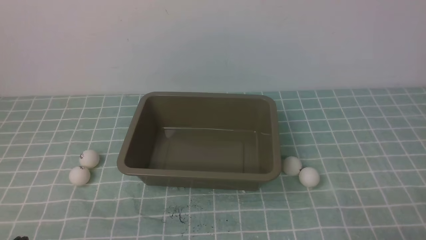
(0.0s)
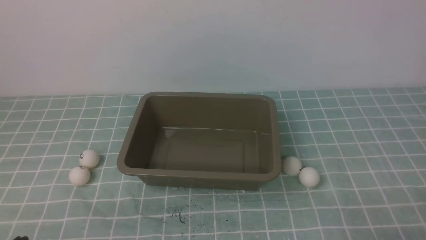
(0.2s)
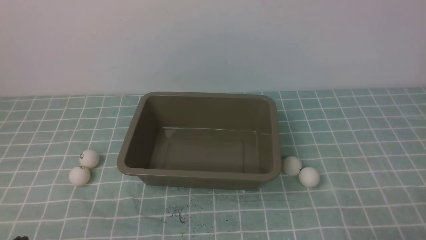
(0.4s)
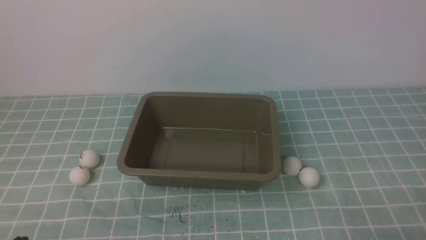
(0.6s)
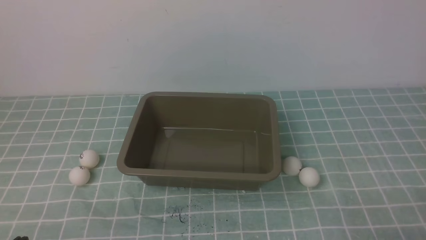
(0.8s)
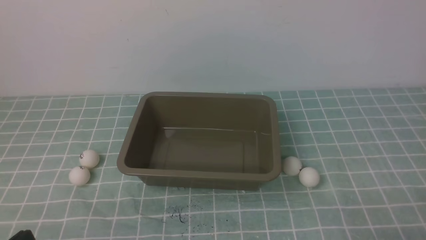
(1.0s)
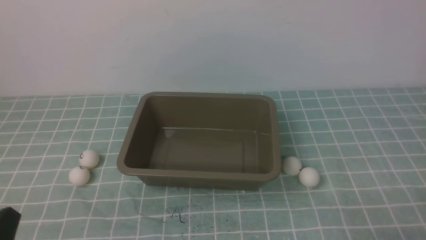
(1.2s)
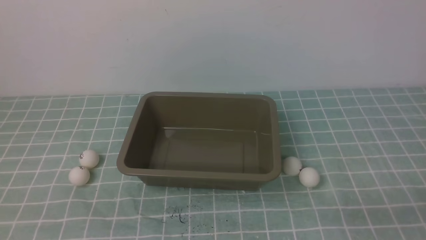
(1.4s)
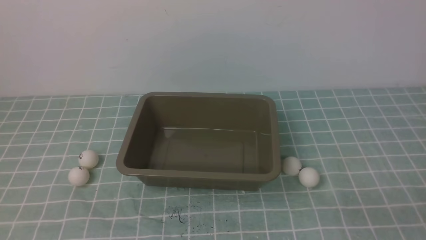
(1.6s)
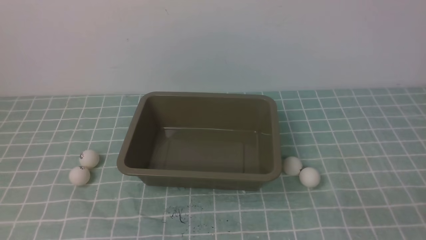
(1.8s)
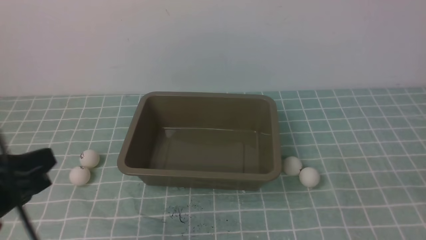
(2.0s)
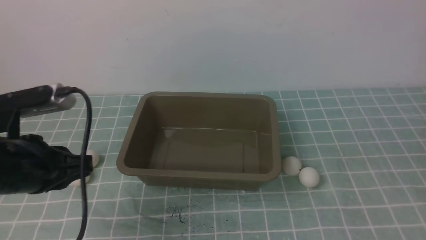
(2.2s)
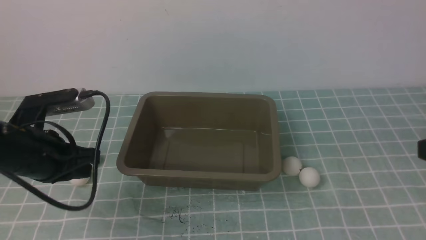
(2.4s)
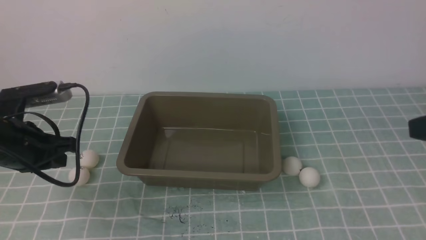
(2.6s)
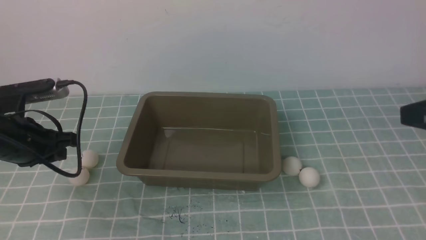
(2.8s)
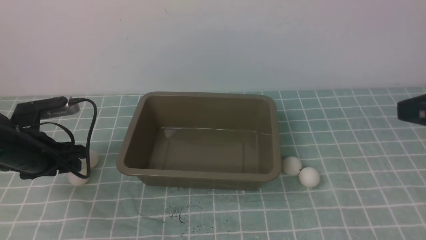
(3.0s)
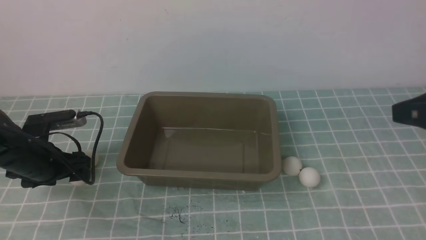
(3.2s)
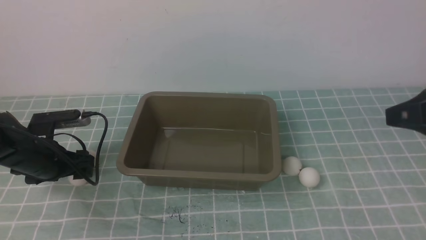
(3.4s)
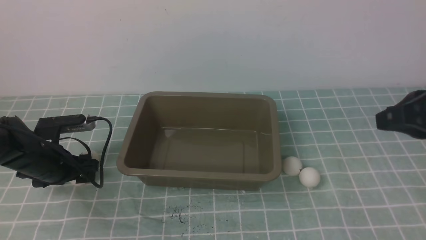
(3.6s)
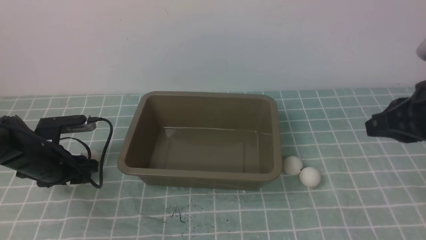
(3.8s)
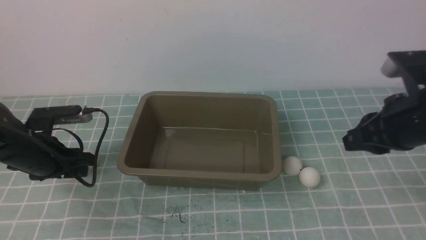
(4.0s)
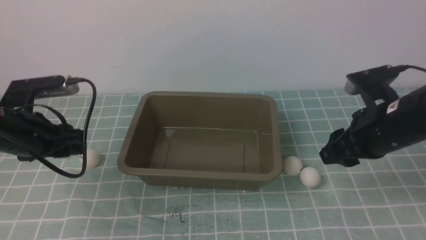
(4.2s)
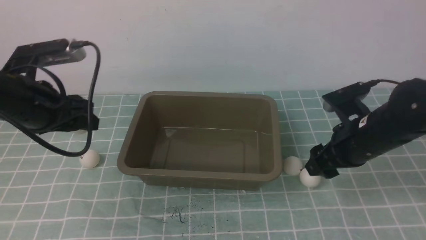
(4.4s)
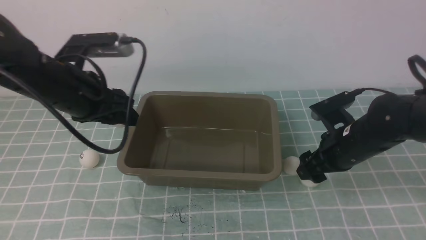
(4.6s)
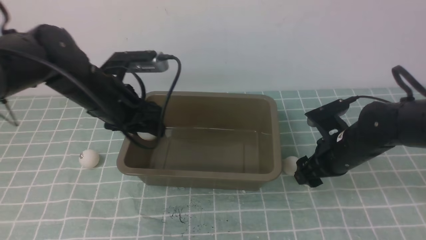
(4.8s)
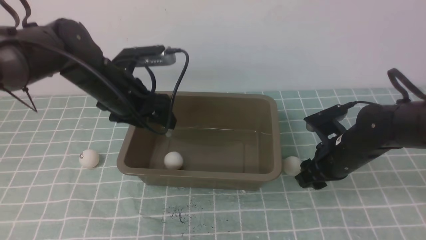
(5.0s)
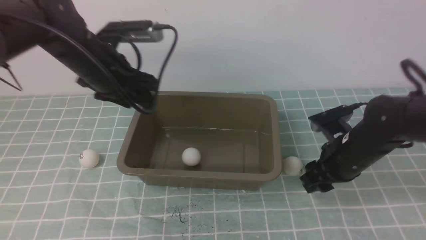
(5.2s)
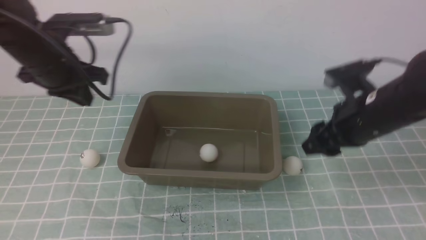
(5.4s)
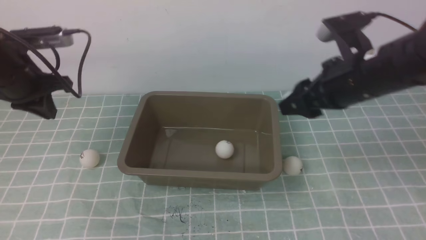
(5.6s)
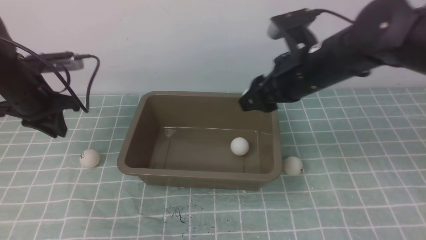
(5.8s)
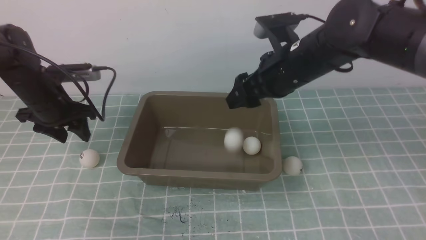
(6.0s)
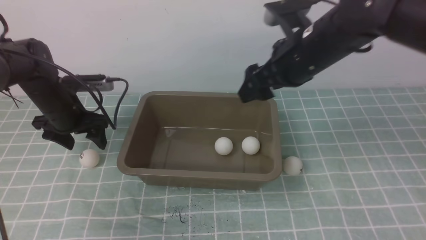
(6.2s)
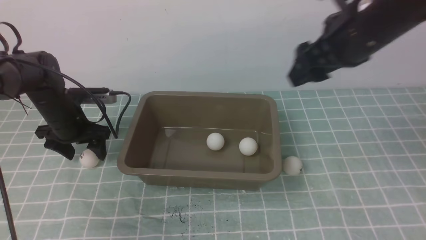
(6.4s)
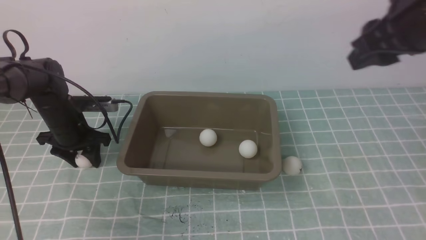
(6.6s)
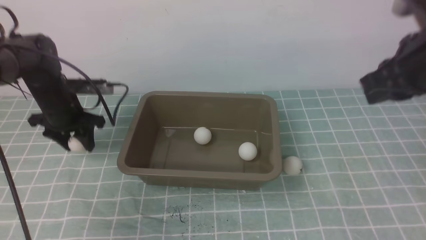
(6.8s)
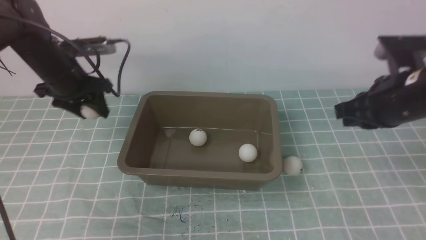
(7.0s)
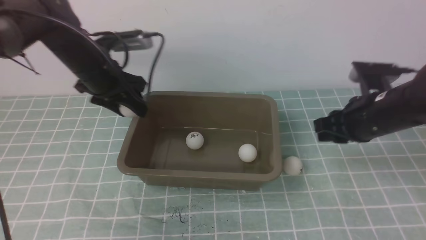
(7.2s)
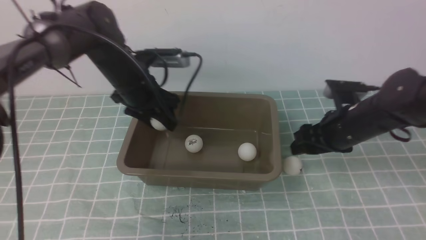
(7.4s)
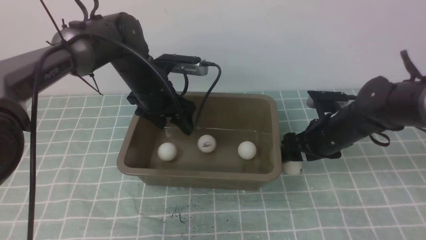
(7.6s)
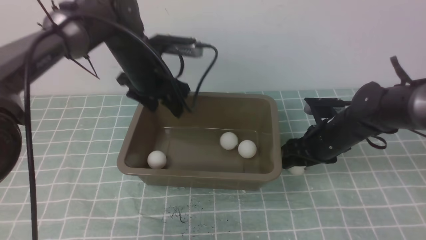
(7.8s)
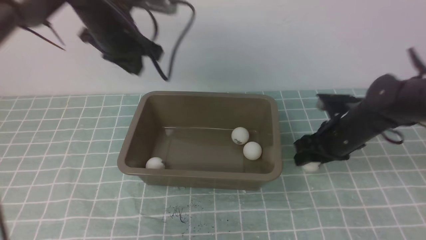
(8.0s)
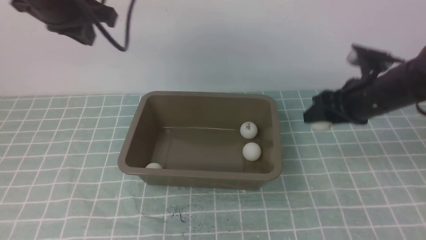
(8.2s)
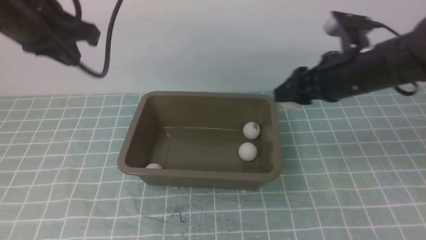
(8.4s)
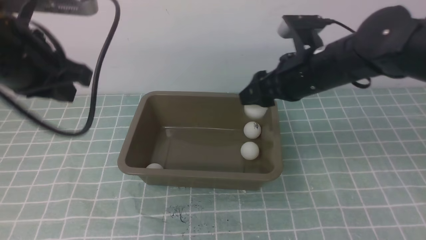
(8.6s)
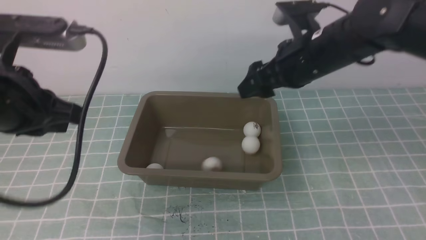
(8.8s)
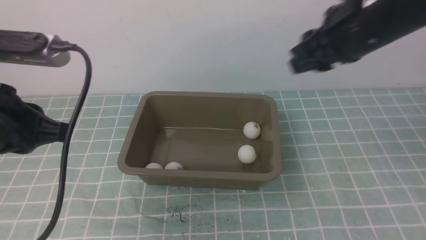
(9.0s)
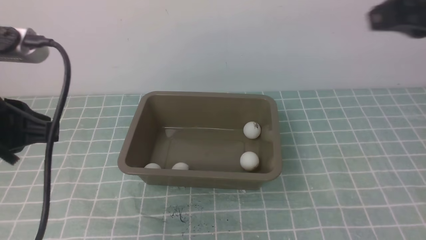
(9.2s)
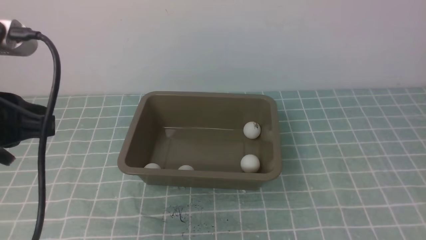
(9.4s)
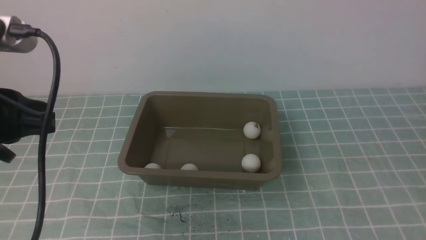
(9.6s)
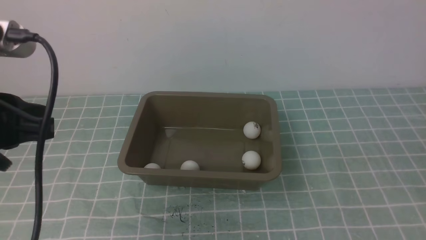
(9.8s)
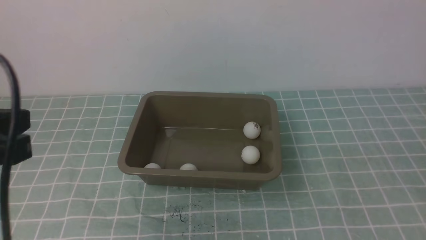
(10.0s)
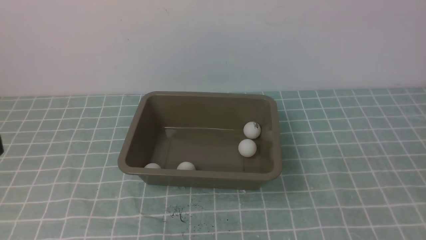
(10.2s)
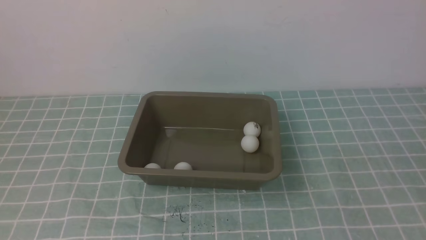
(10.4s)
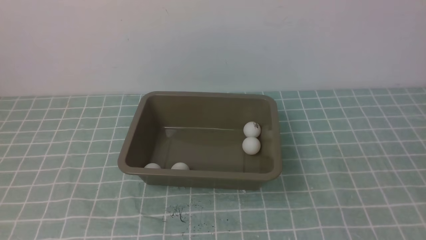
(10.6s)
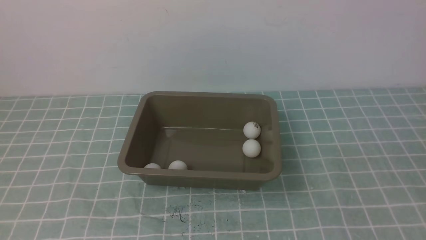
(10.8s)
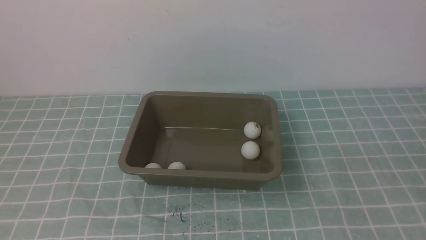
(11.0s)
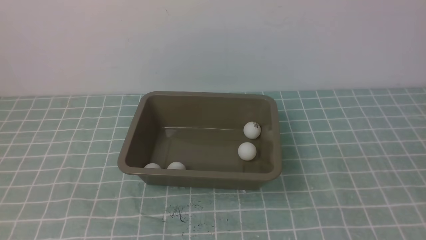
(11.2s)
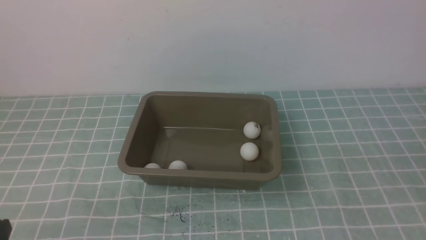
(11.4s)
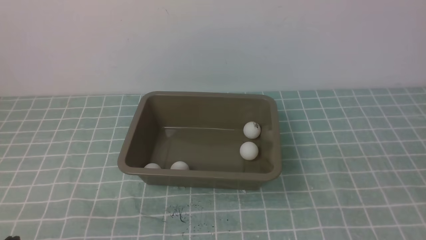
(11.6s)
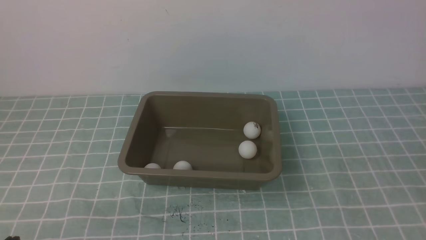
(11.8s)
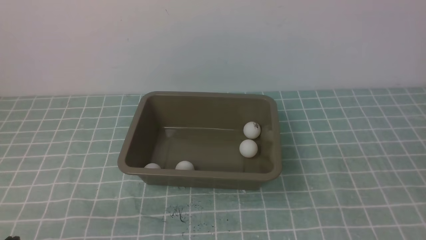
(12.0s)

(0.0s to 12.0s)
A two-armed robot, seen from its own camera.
Step, 0.0s - 4.0s: use the left arm to clamp the table tennis ball closest to it.
Step, 4.4s - 4.6s: use the left arm to put the table tennis ball into the box.
Step, 4.8s - 5.2s: use the right arm to clamp the table tennis ball closest to it.
Step, 5.4s - 6.0s: use the right arm to put the table tennis ball into the box.
Step, 6.2s - 6.8s: use the left arm to clamp the table tennis ball closest to it.
Step, 7.0s - 7.4s: use the left arm to put the table tennis ball into the box.
Step, 7.8s - 8.0s: use the right arm to clamp the table tennis ball closest to it.
Step, 8.4s - 8.6s: use the right arm to put the table tennis ball into the box.
1.6s - 3.0s: The right gripper shifts roughly 20 cm upward and forward. Meanwhile the left gripper shifts about 25 cm forward, and opens its fingers.
3.0s - 4.4s: The right gripper is displaced downward and forward by about 20 cm, and opens. Meanwhile the left gripper heads upward and to the right, covering approximately 10 cm.
4.4s - 6.0s: The left gripper heads forward, downward and to the left, covering about 15 cm, and closes, then reopens. Meanwhile the right gripper goes some 15 cm upward, to the left and forward.
6.0s - 7.6s: The right gripper heads downward and to the right, covering about 15 cm, and closes, then reopens. The left gripper is displaced to the right by some 15 cm.
7.6s - 9.0s: The right gripper goes about 25 cm upward, and closes up. The left gripper goes roughly 30 cm backward, upward and to the left, and closes.
9.0s - 10.4s: The left gripper travels backward by some 15 cm. The right gripper heads backward and to the right, covering some 30 cm, and closes its fingers.

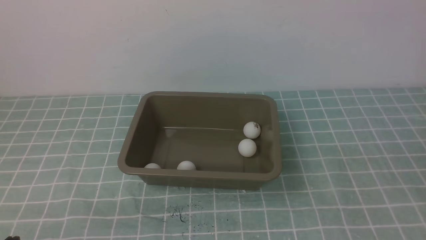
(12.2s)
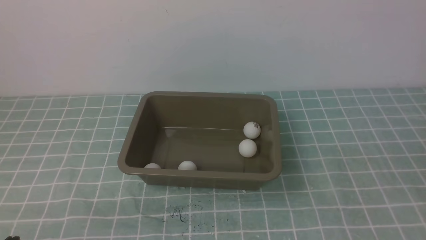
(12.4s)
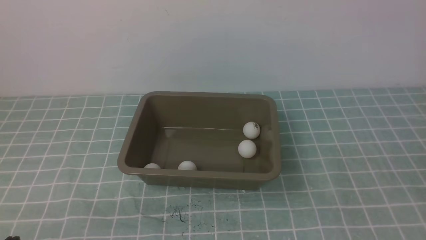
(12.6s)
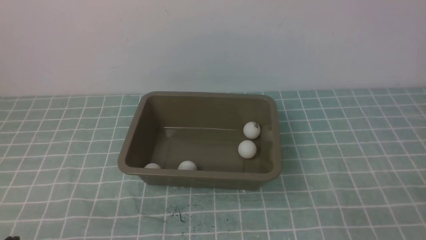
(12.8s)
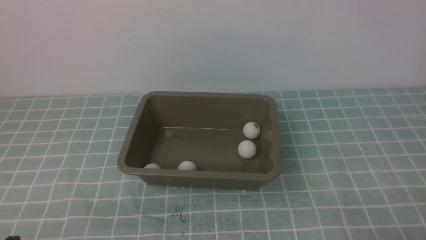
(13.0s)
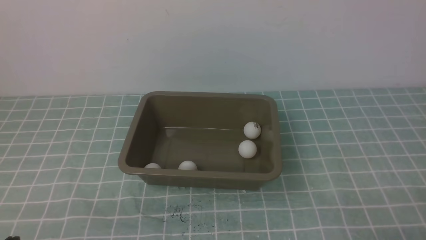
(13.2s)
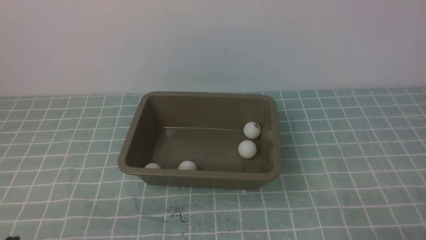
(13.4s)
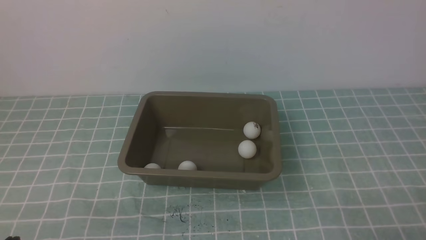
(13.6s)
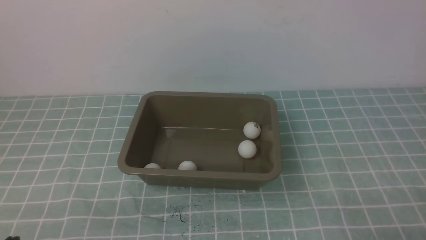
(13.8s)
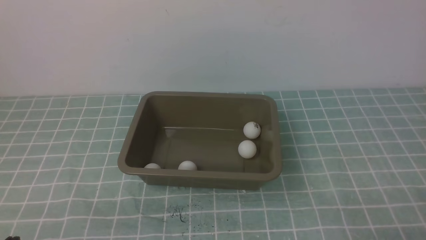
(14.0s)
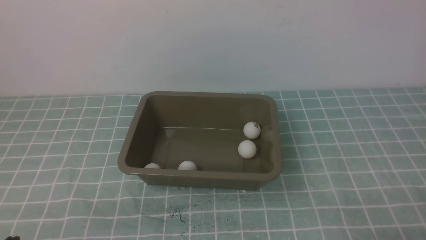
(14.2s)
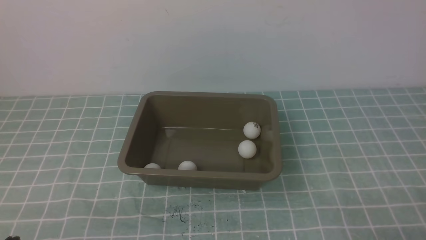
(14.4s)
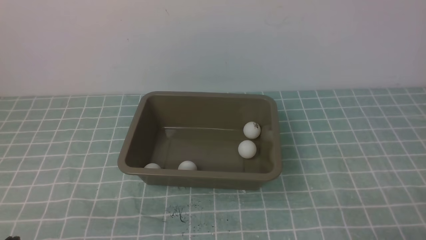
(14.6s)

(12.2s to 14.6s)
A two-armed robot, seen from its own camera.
13.4s - 14.6s: The two grippers keep their place.

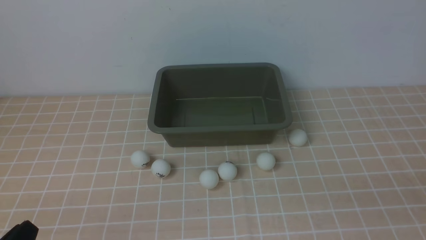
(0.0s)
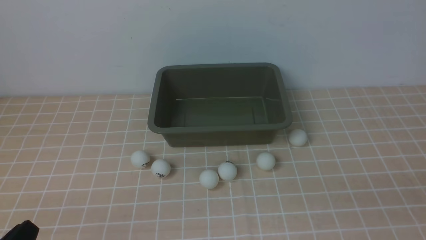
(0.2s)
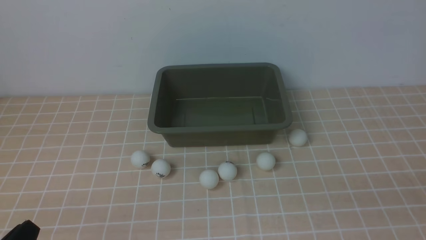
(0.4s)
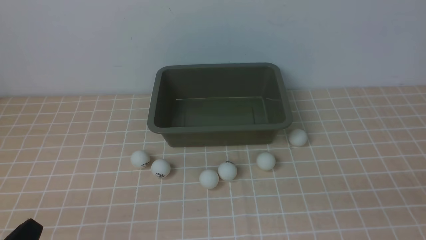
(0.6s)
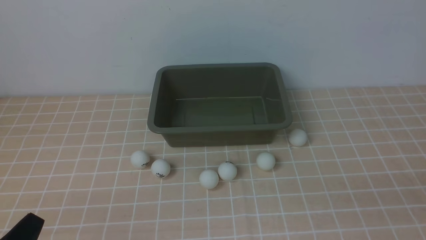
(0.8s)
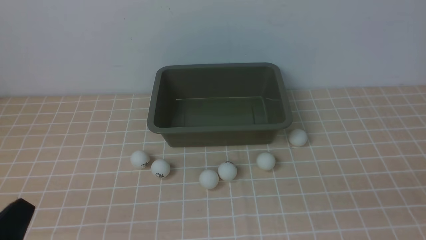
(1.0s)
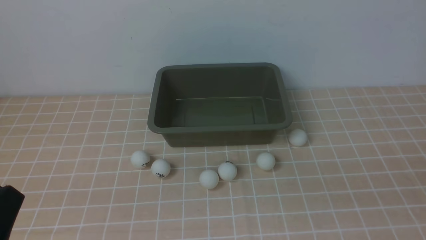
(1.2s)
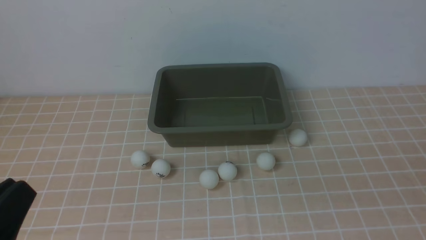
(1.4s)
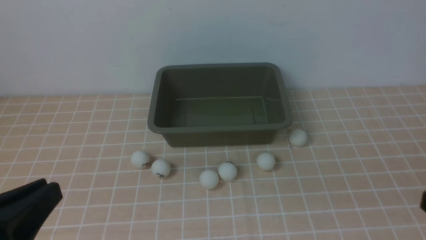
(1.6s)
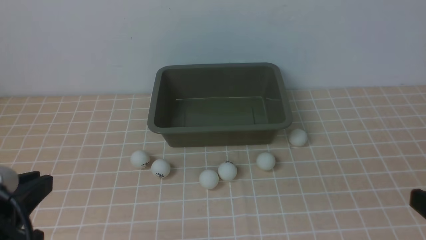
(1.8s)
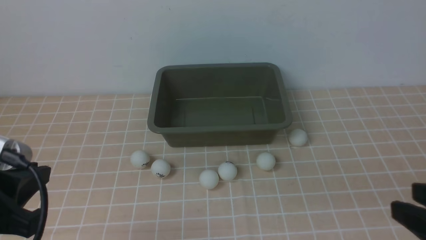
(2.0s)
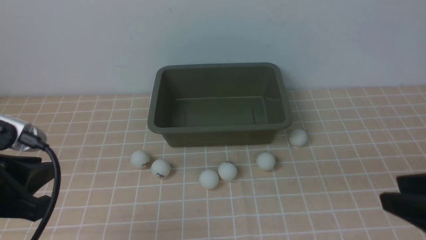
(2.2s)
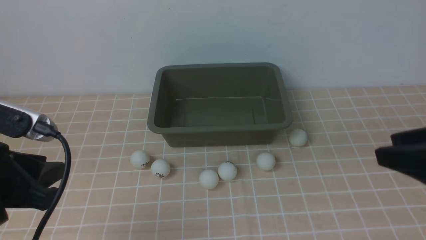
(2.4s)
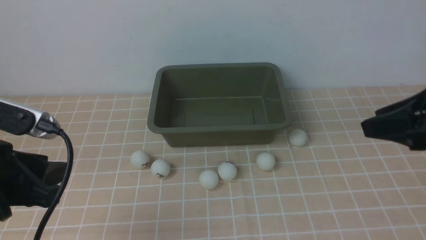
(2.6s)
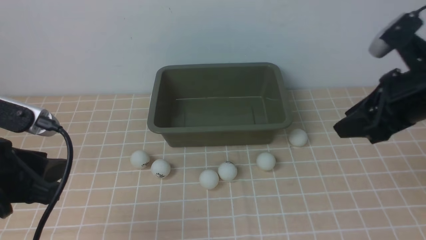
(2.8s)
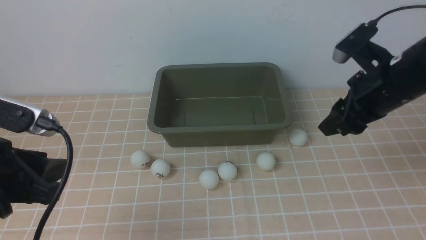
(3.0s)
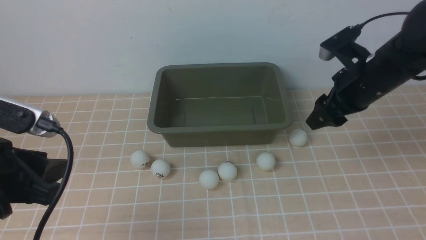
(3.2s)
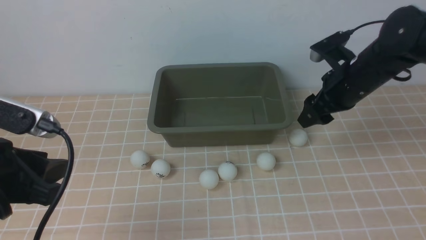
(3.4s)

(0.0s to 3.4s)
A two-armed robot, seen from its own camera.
0.0s - 1.6s: The left gripper travels upward by roughly 10 cm.
1.6s - 3.4s: The right gripper goes approximately 35 cm forward, and opens up; the left gripper travels forward by about 10 cm, and opens up.
